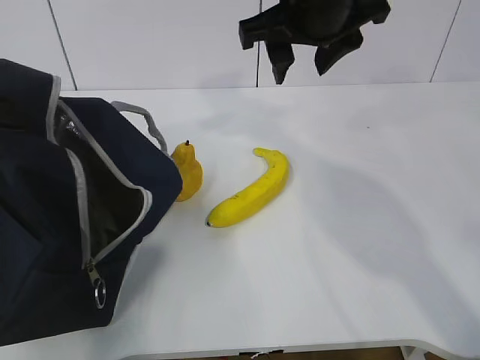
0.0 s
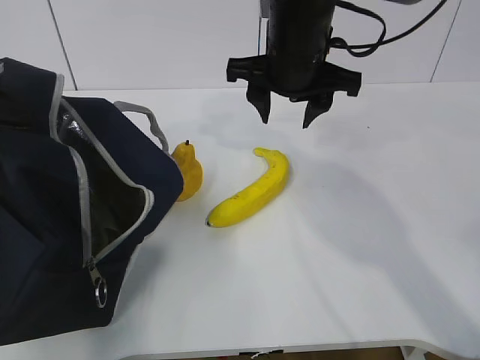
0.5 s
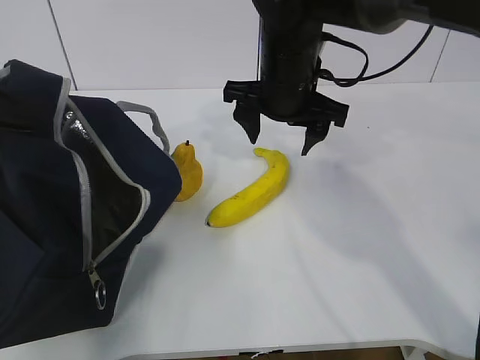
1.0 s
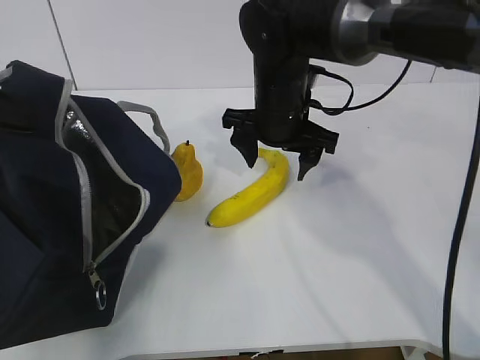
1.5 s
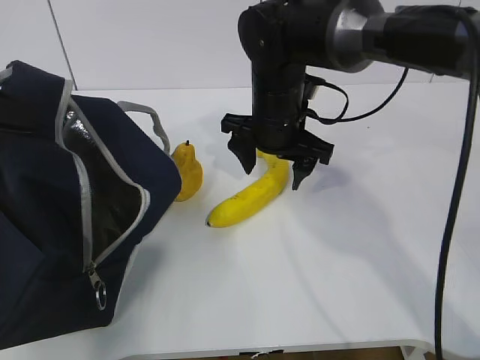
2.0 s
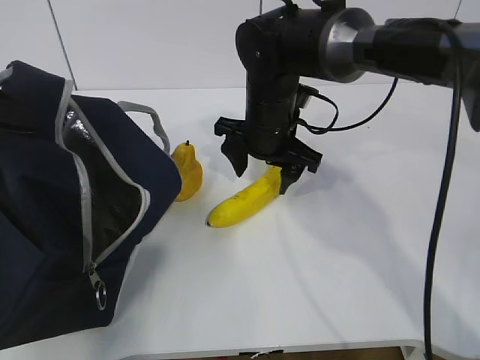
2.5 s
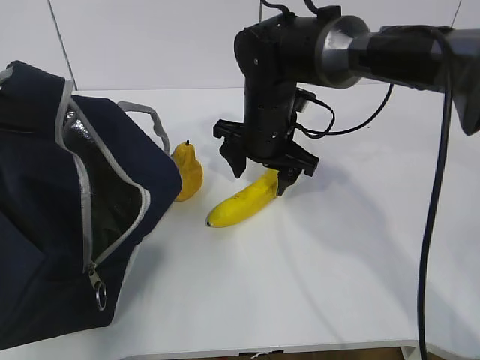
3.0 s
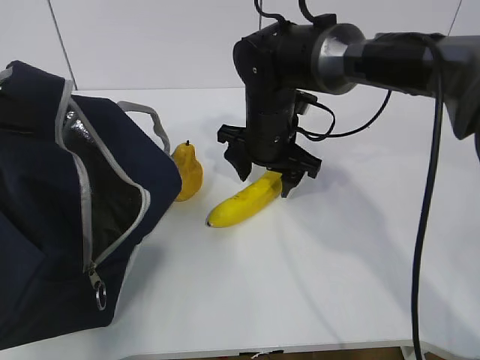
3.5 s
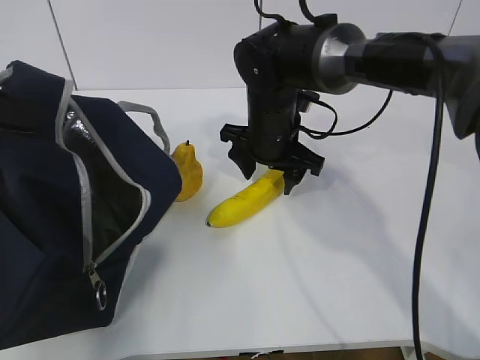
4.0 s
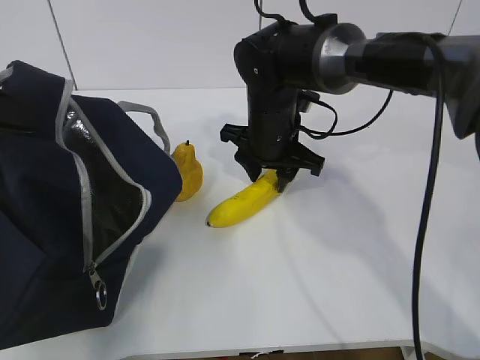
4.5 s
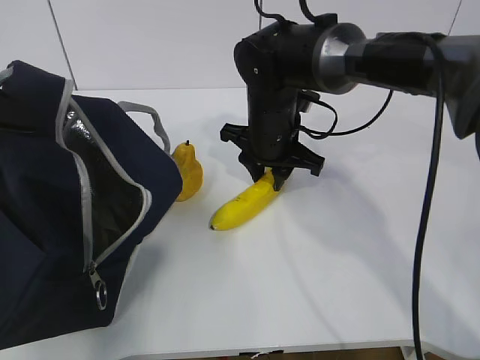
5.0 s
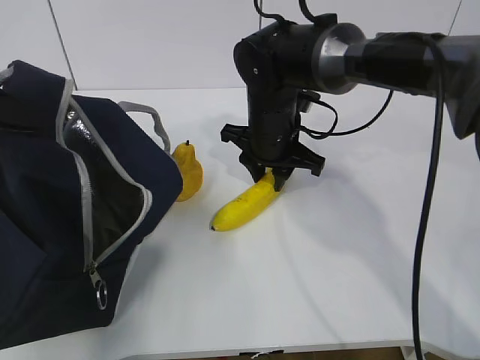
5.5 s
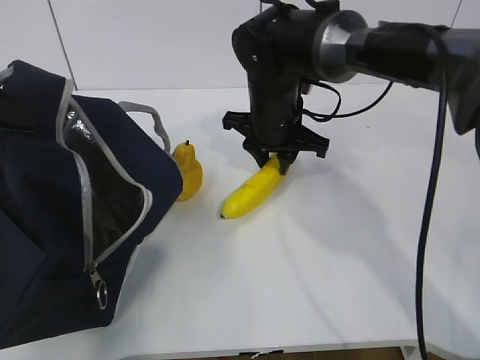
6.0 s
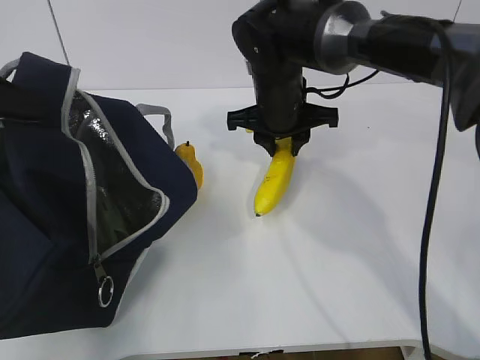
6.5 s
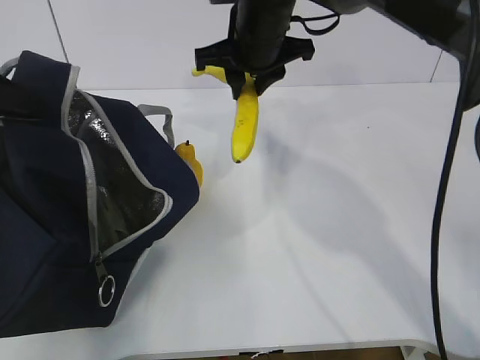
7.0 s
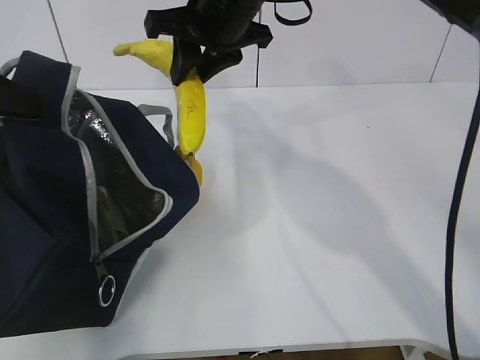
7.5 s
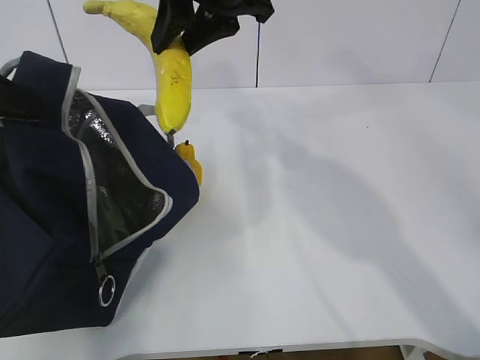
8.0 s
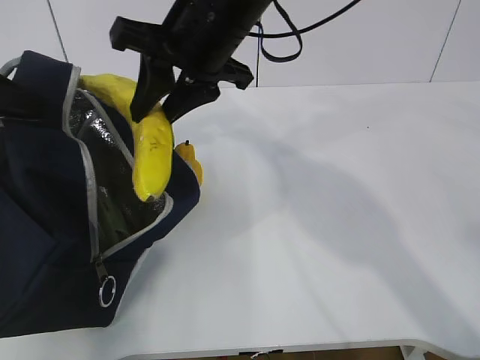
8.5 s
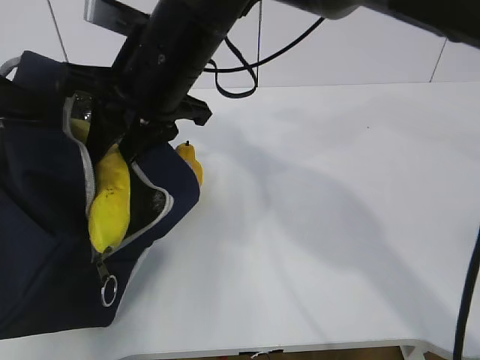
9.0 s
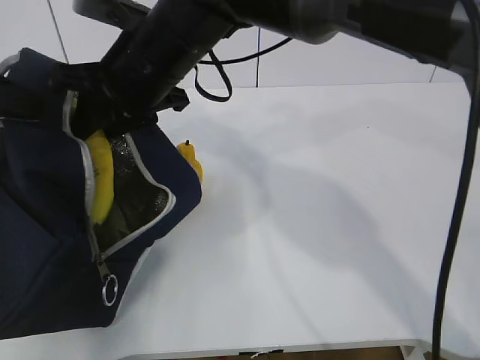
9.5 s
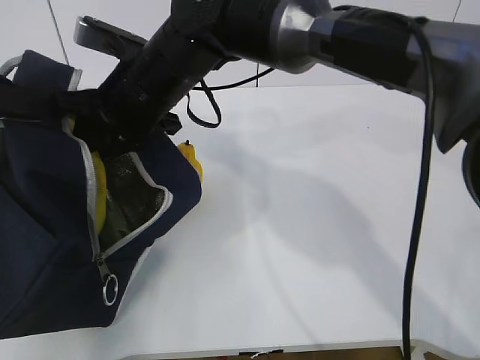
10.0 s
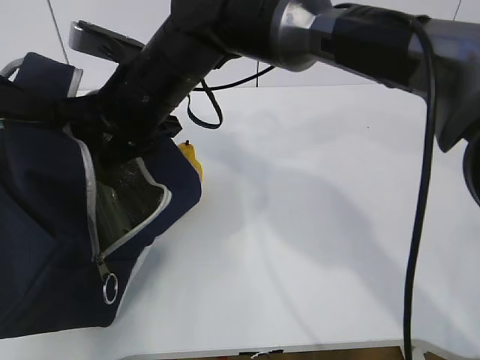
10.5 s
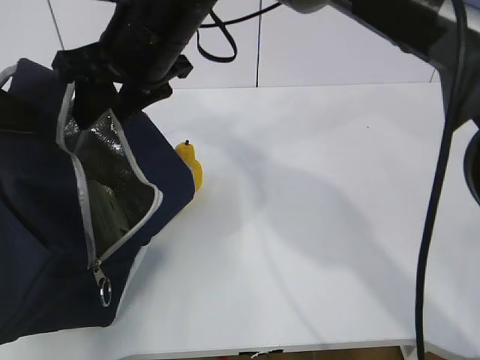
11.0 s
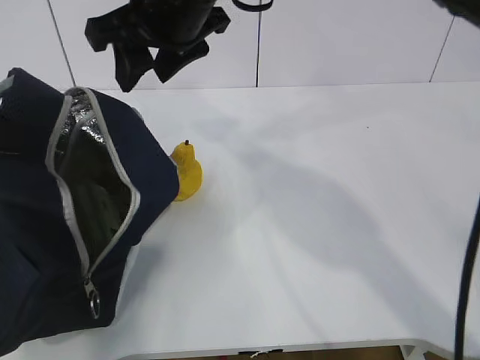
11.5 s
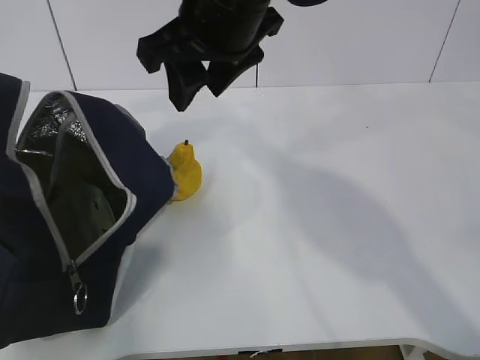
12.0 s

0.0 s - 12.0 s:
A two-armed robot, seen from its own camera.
Step, 0.0 s - 4.0 s: Place it into the bag with your right hand.
0.0 s - 2.0 s: The right gripper is displaced downward by approximately 15 cm.
2.0 s - 4.0 s: There are only small adjustments of the grippers.
4.0 s - 6.0 s: The right gripper closes its fingers.
6.0 s - 8.0 s: The right gripper is displaced upward by roughly 20 cm.
8.0 s - 10.0 s: The right gripper is displaced downward and to the left by some 15 cm.
10.0 s - 12.0 s: The right gripper travels upward and to the right by approximately 10 cm.

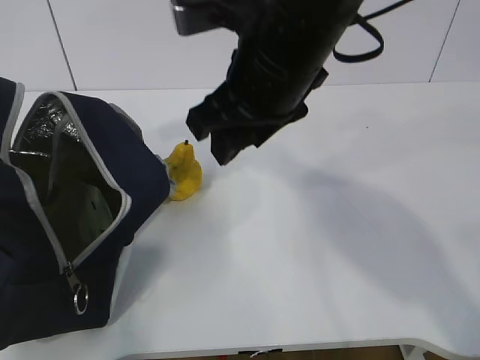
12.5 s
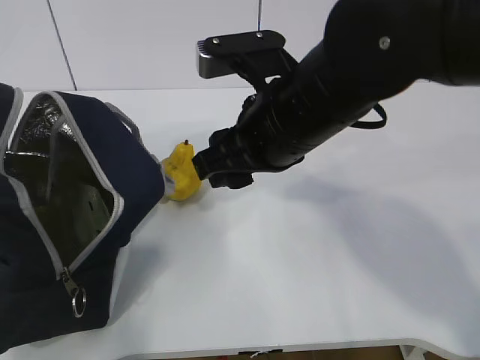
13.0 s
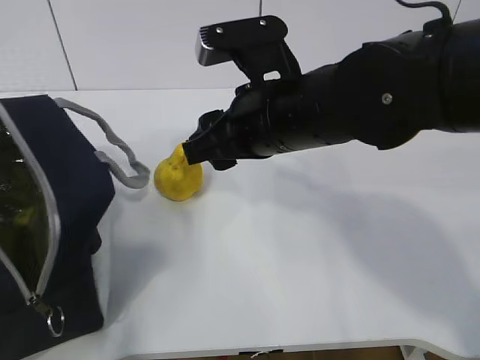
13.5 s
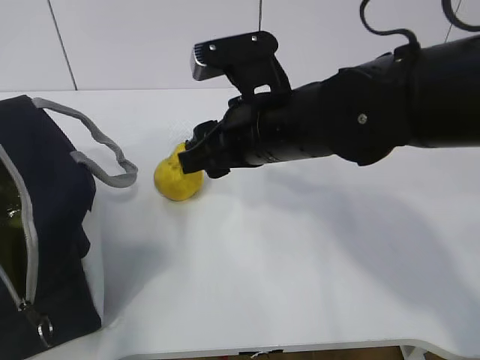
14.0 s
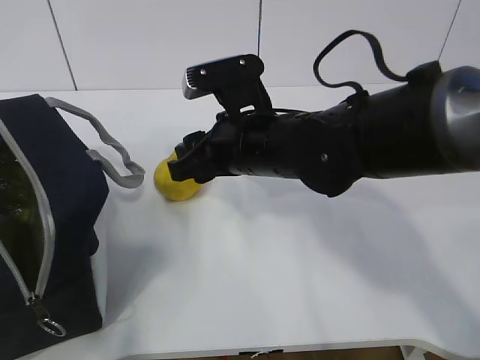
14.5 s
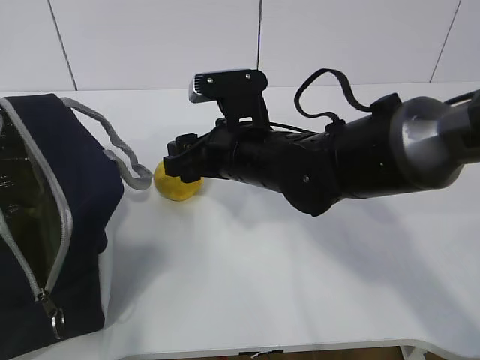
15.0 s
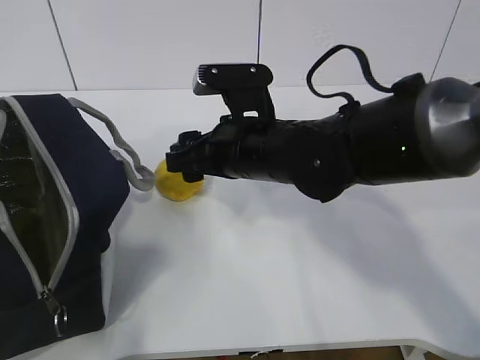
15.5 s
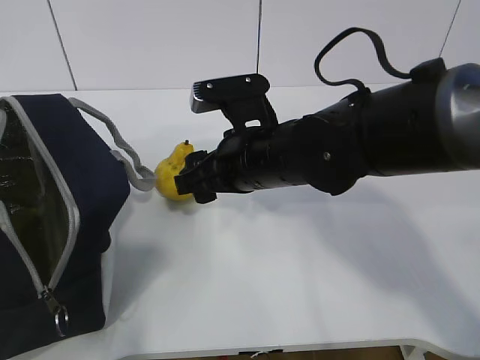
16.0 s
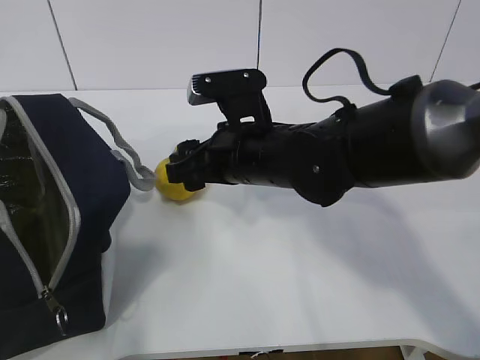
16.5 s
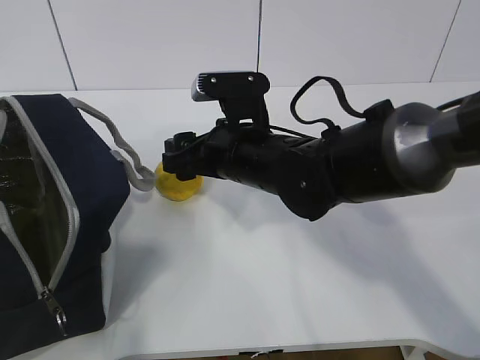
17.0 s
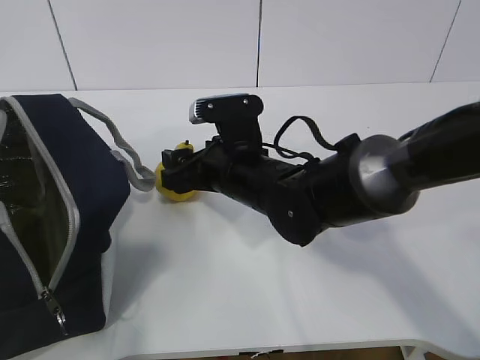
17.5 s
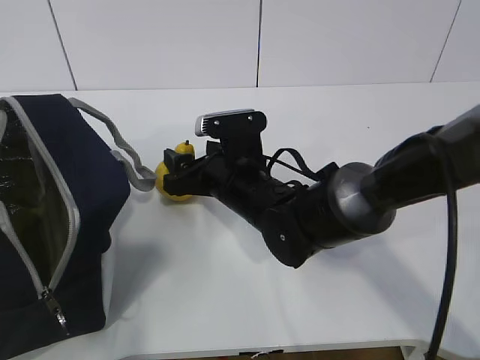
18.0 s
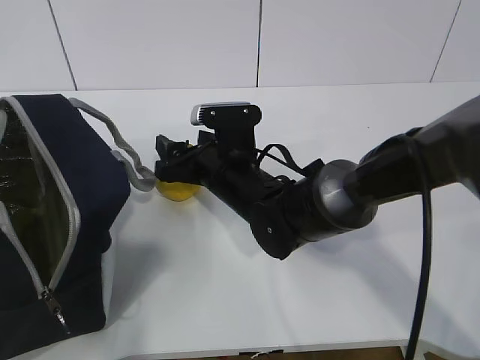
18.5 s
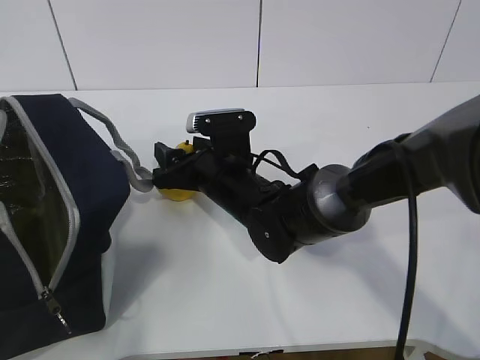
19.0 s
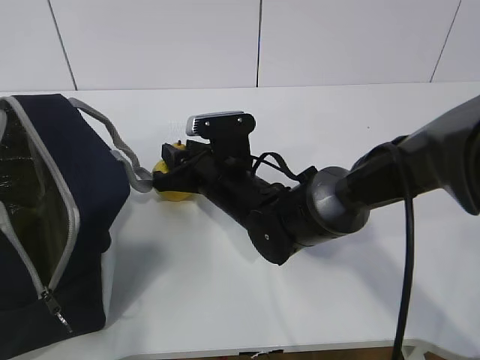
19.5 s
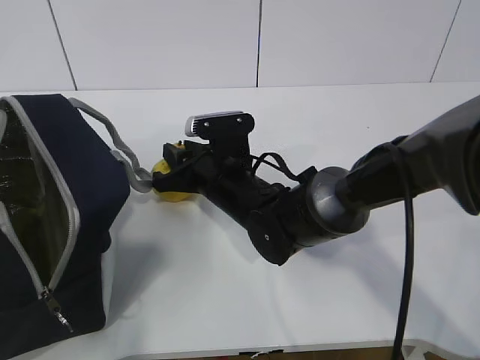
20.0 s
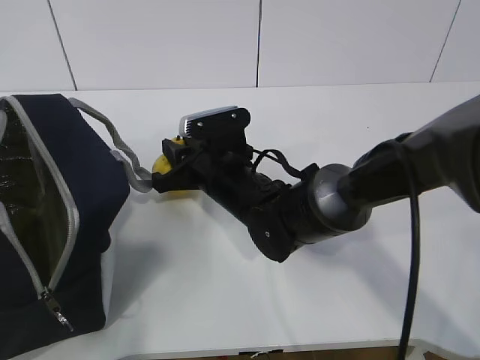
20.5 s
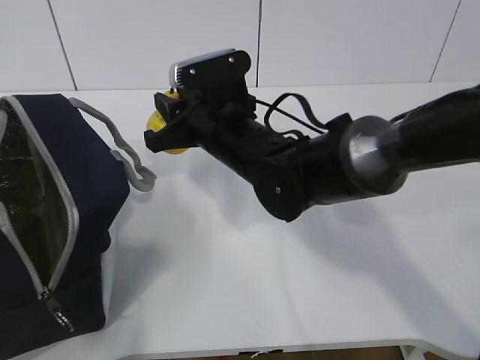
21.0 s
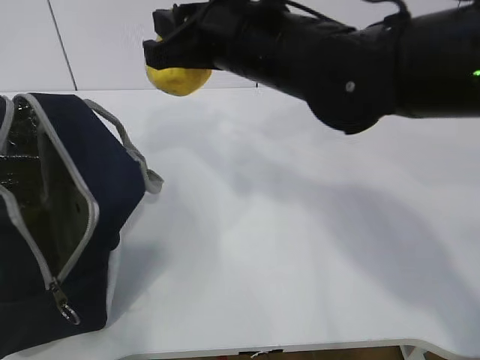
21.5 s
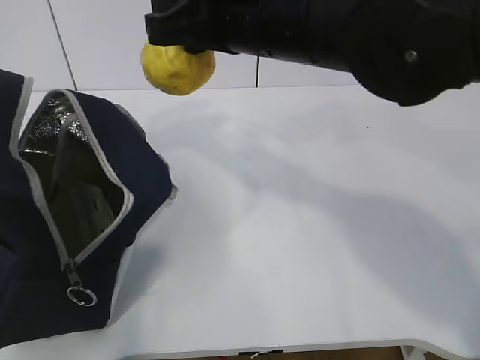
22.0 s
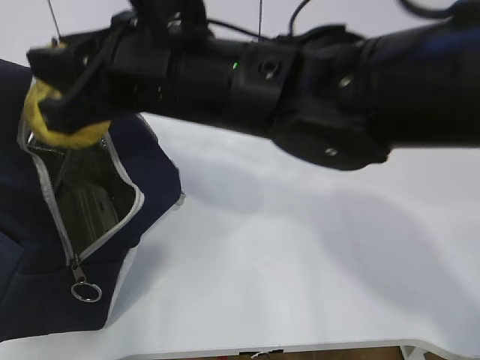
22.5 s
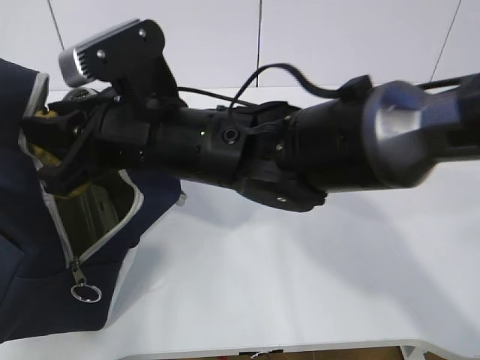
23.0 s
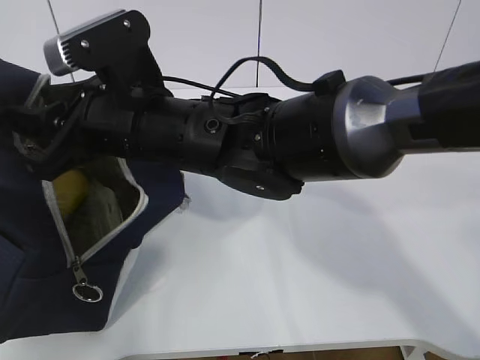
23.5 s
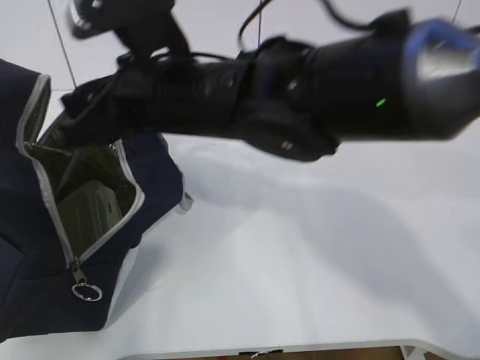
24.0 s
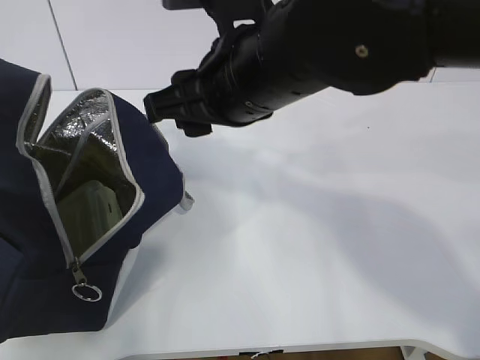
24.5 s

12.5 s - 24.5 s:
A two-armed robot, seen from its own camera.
Step, 12.5 s - 15.0 s: Secure the lunch bag with your left hand.
Step, 15.5 s - 18.0 s: Grab the lunch bag with your right hand.
Step, 18.5 s - 21.0 s: Move the lunch bag to the right.
12.5 s - 14.5 s: The right gripper moves downward, roughly 10 cm.
14.5 s - 16.5 s: The grippers stay close to where they were, moving slightly.
16.5 s - 18.5 s: The right gripper heads downward, covering some 5 cm.
18.5 s - 20.5 s: The right gripper closes up.
20.5 s - 22.5 s: The right gripper is displaced upward and backward by approximately 20 cm.

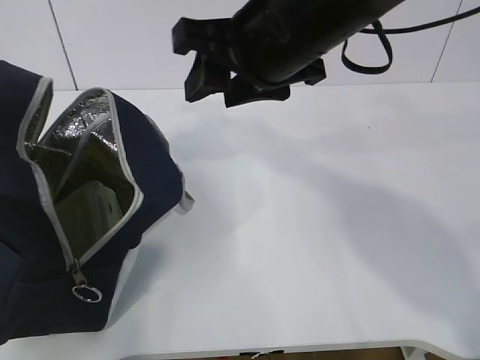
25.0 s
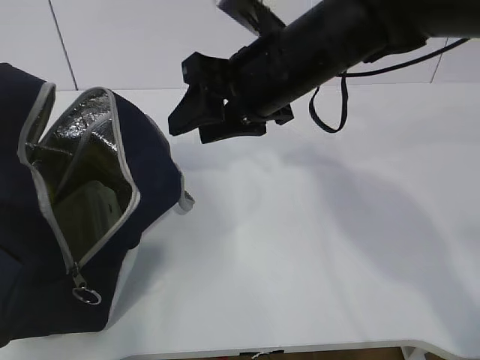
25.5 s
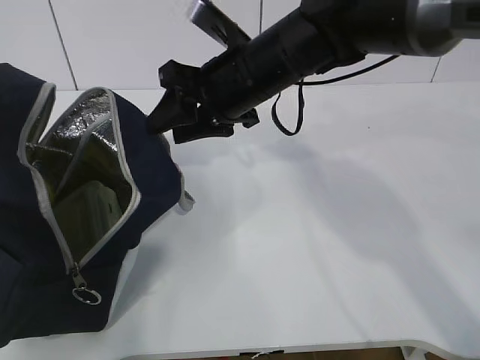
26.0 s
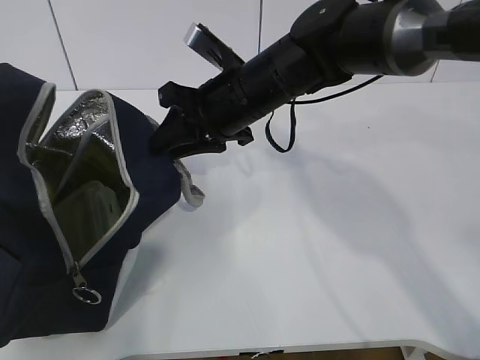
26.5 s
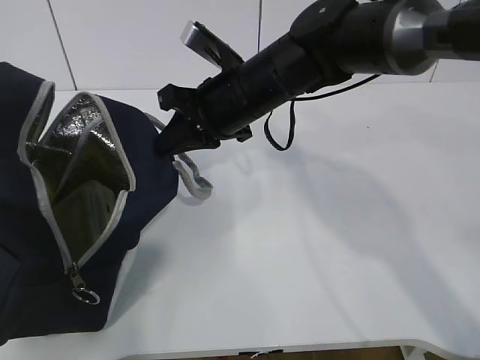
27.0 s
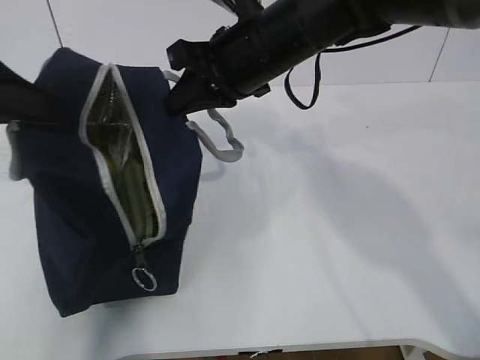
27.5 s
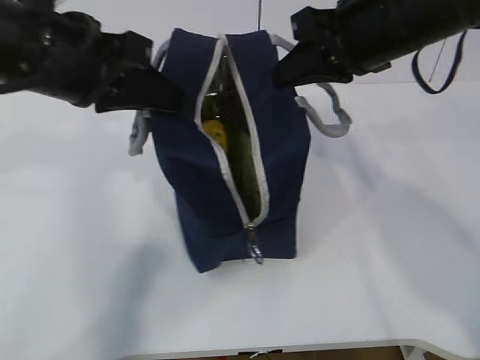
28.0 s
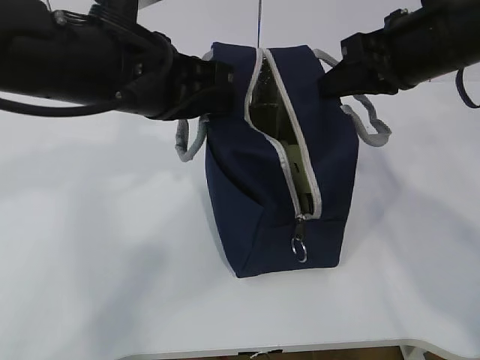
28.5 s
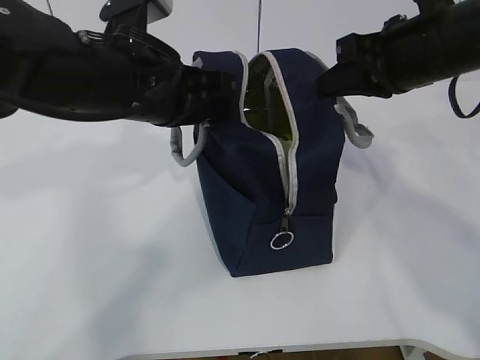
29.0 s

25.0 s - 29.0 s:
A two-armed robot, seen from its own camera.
Step, 25.0 s - 28.0 s: Grab the lunch bag with your left hand.
25.0 s - 27.0 s: The right gripper shifts about 15 cm downward and forward, and closes its fingers.
27.0 s - 29.0 s: The right gripper is displaced to the right and upward by approximately 20 cm, while the left gripper goes some 20 cm to the right.
